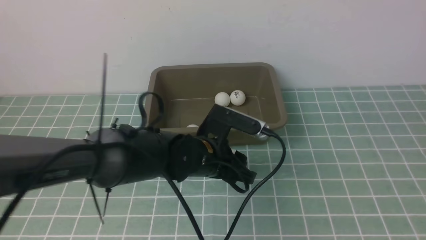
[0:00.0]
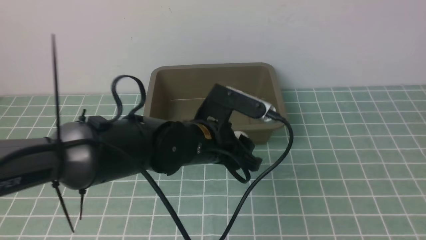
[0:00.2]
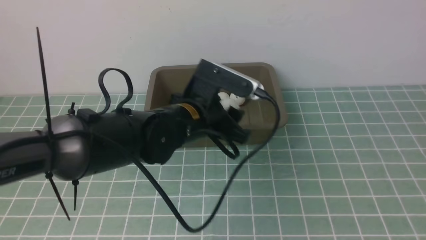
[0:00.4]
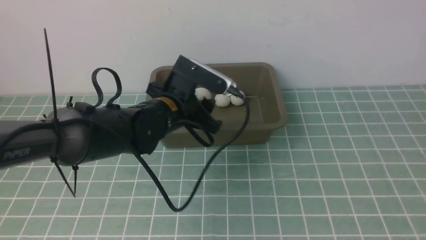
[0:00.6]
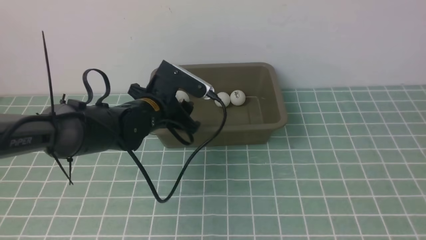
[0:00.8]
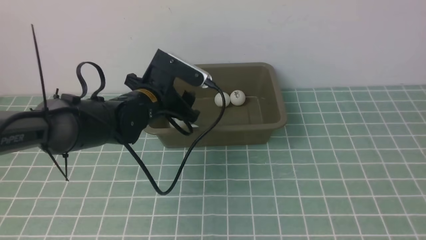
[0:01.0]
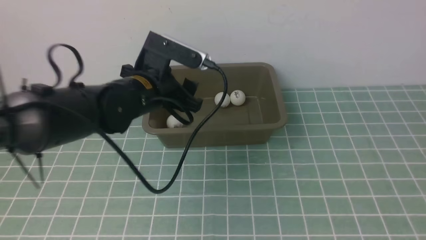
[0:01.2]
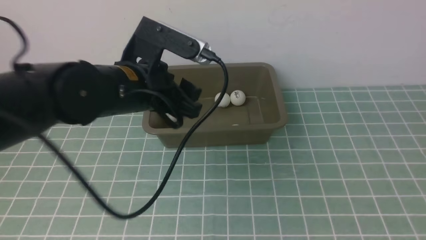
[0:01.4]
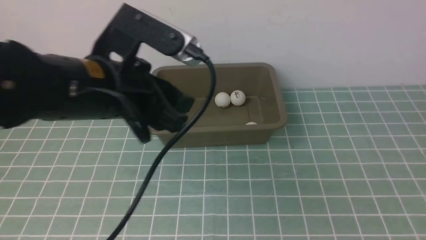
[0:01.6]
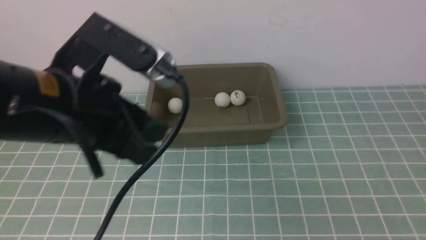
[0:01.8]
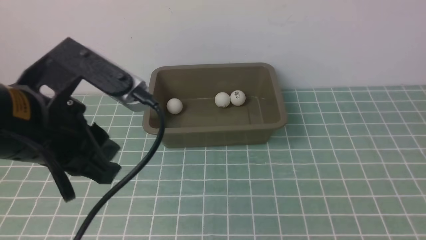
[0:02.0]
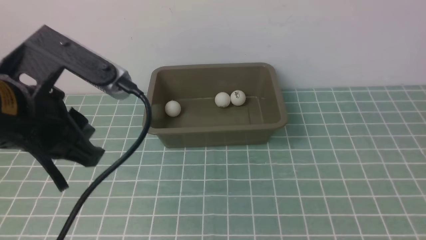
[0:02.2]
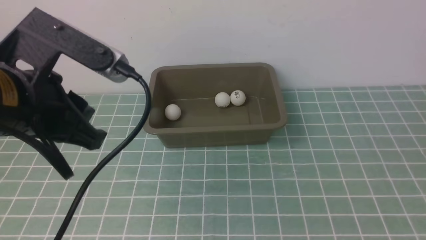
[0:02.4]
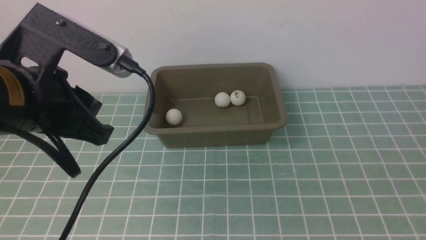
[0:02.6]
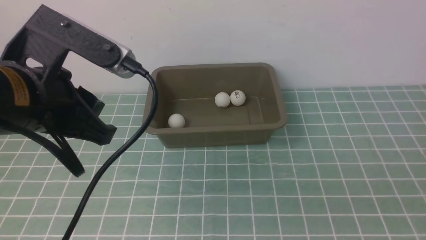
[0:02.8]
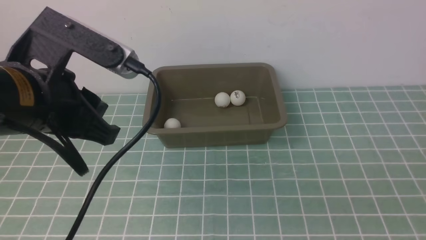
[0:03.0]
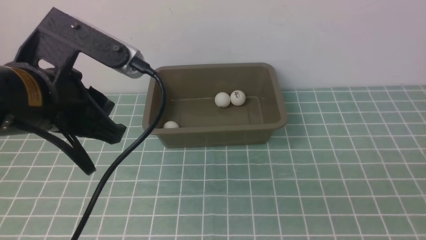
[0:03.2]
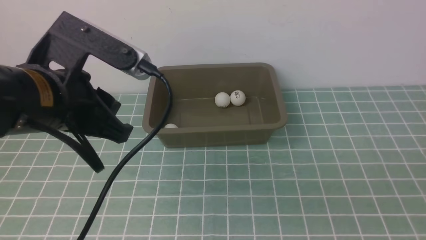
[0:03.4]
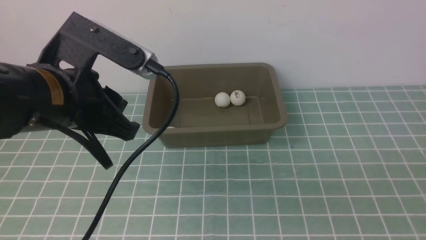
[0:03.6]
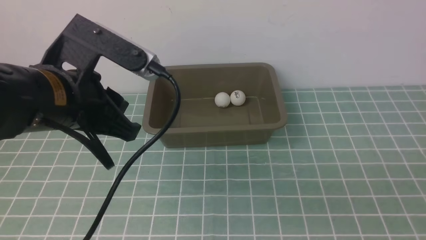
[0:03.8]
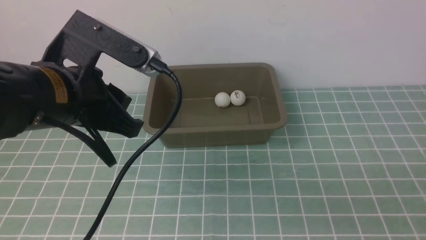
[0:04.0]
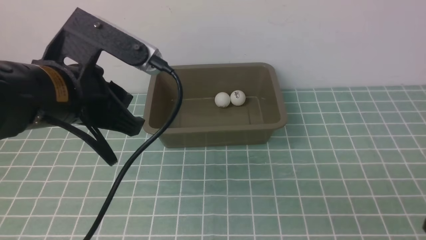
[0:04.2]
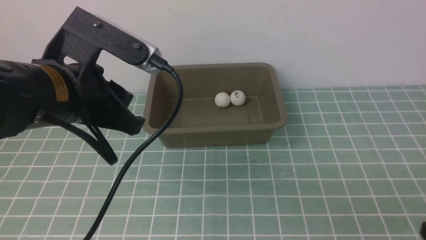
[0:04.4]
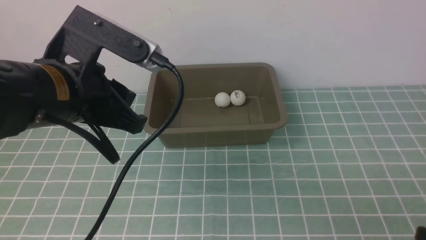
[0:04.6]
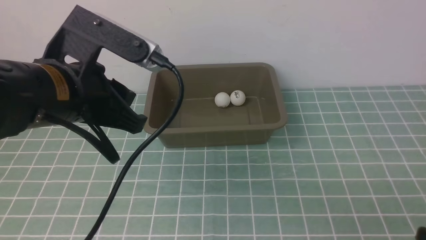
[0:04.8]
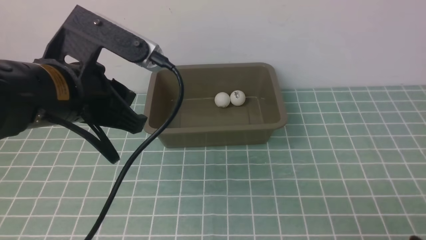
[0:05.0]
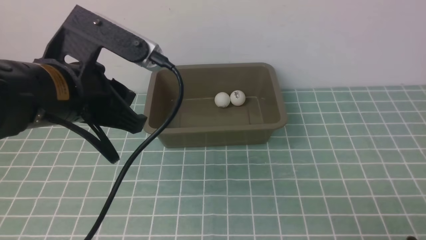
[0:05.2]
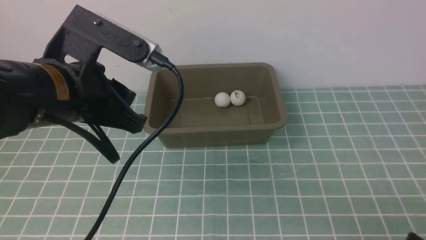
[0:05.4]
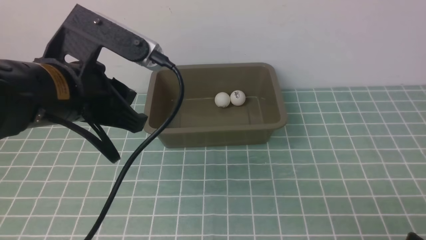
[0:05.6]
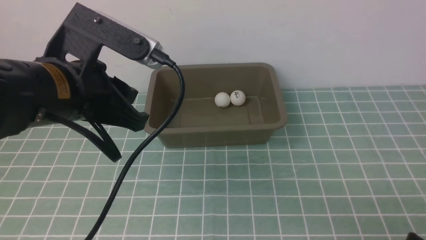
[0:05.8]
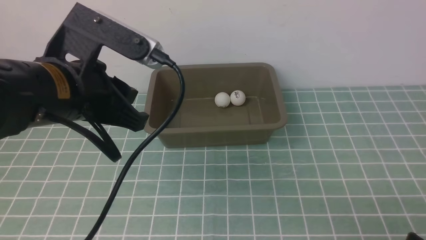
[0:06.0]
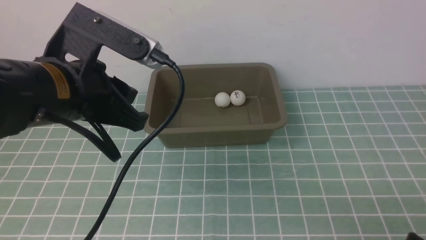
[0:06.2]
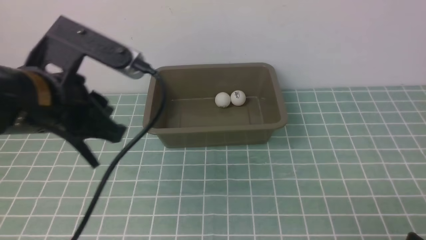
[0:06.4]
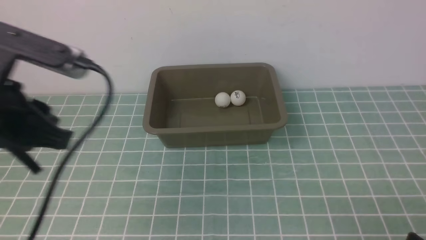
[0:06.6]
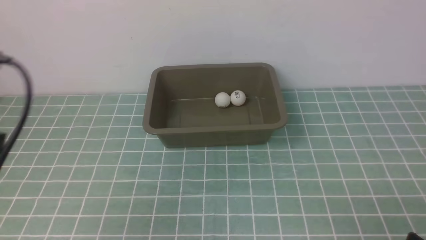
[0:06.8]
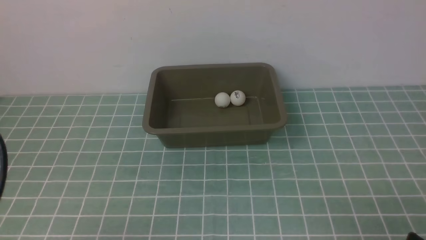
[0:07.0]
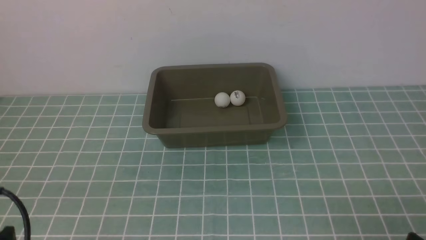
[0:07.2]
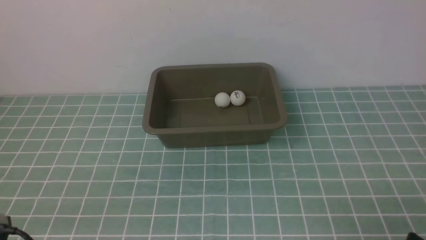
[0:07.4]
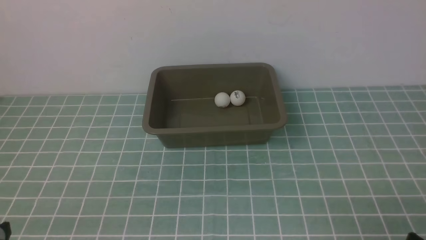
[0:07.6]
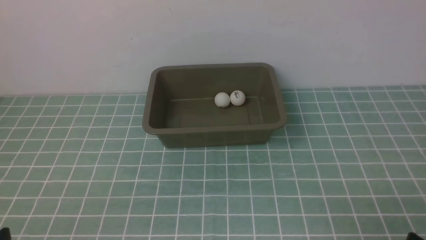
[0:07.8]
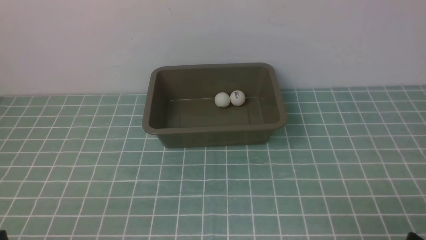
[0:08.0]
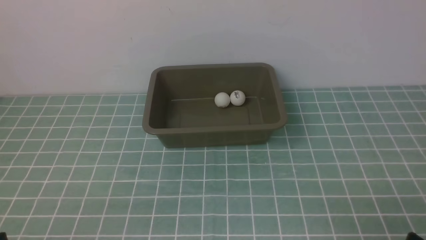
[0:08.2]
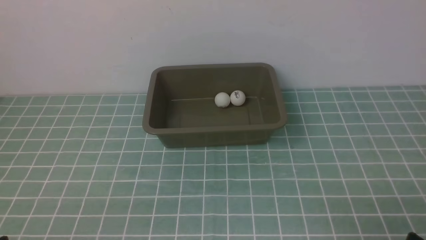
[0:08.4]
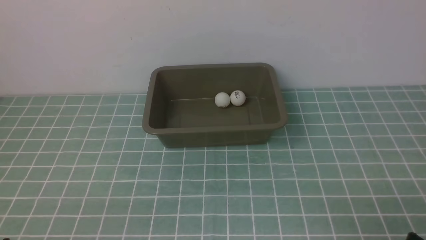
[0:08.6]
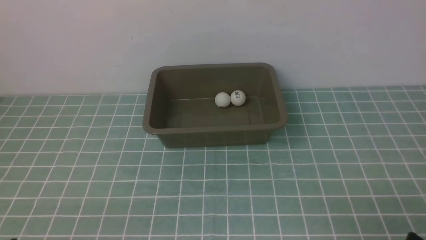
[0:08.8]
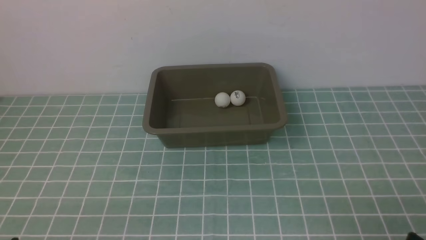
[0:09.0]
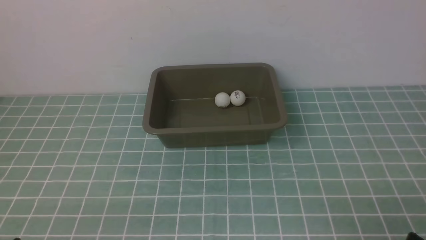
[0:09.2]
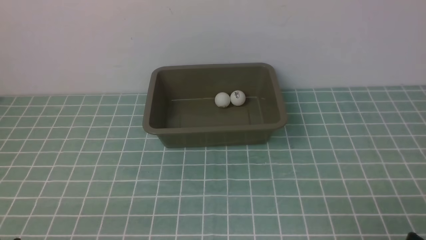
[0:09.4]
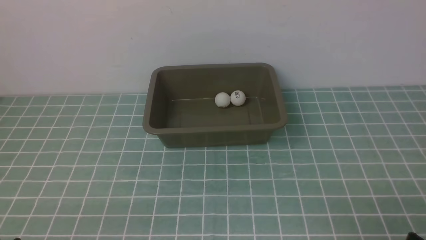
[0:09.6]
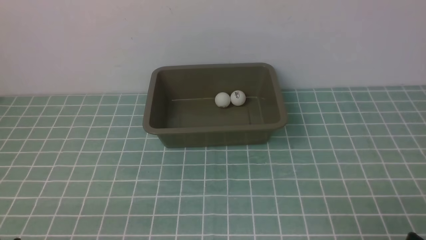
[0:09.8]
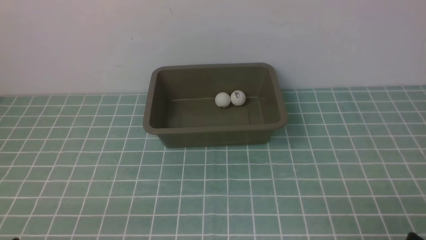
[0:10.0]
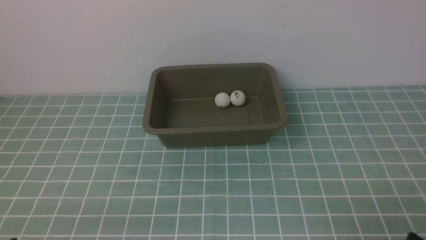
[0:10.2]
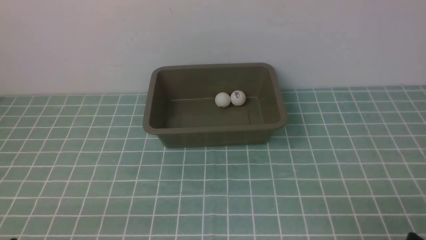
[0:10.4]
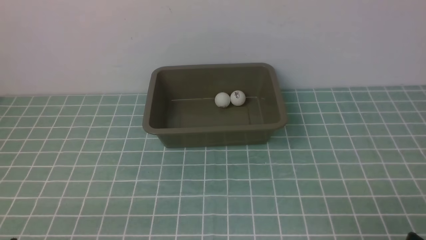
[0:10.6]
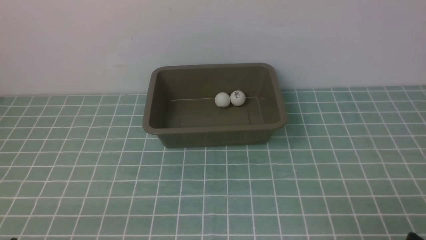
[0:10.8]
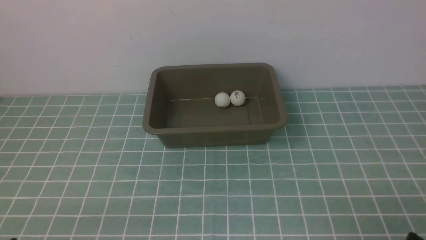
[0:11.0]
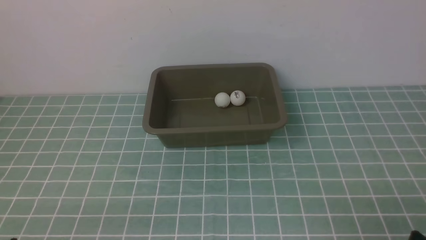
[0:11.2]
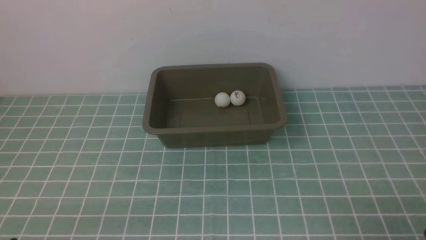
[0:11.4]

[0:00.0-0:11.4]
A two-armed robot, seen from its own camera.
Step, 0:00.4 to 0:01.2: use the left arm to put the table tennis ball into the box.
0:00.0 to 0:01.4: The left gripper travels upward and to the left by about 10 cm.
0:01.4 to 0:02.8: The left gripper goes some 15 cm backward, upward and to the left, and closes. The right gripper moves downward and backward, about 10 cm.
0:02.8 to 0:04.2: The right gripper travels downward by roughly 5 cm.
0:04.2 to 0:05.6: The right gripper shifts approximately 5 cm downward.
0:05.6 to 0:07.2: The left gripper goes roughly 15 cm backward and to the left.
0:07.2 to 0:08.6: The left gripper is displaced downward and backward by approximately 15 cm.
0:08.6 to 0:10.0: Both grippers stay put.
0:10.0 to 0:11.4: Neither gripper changes place.

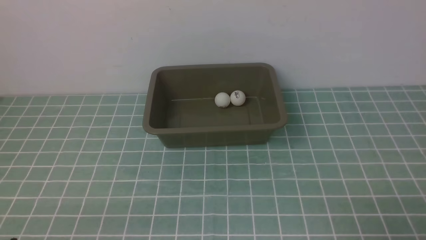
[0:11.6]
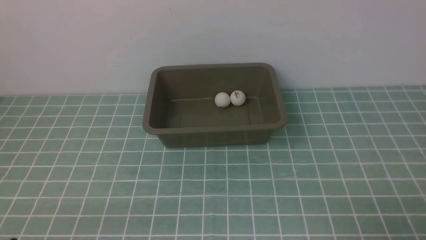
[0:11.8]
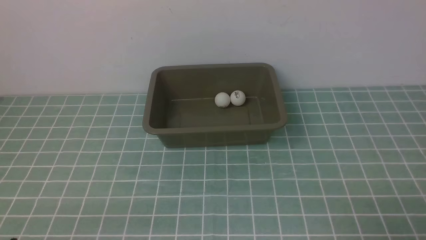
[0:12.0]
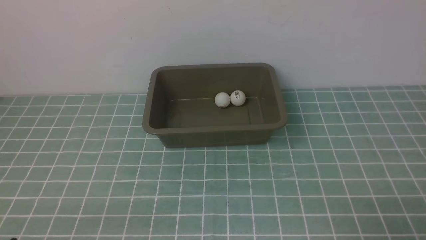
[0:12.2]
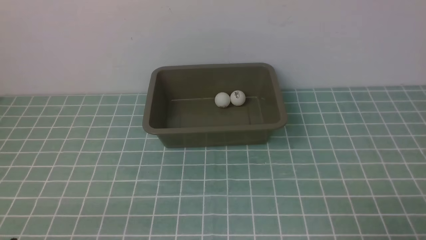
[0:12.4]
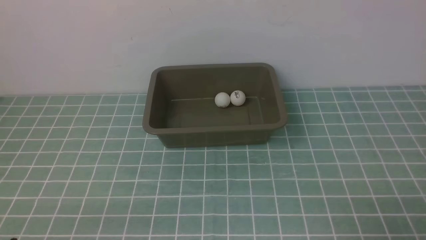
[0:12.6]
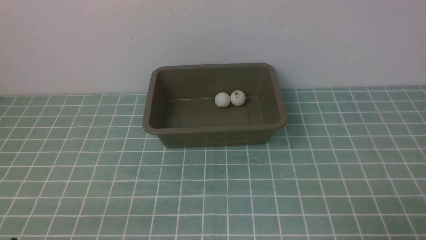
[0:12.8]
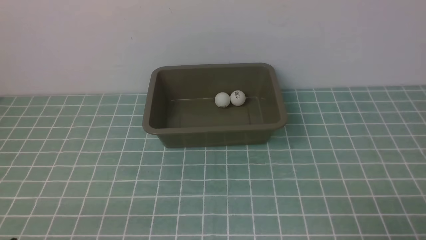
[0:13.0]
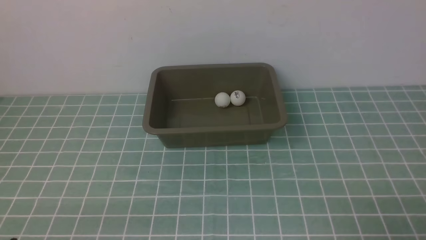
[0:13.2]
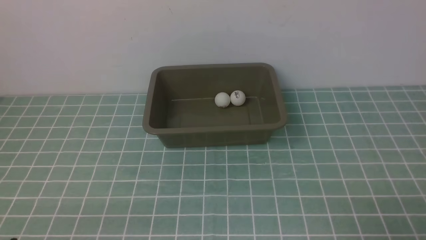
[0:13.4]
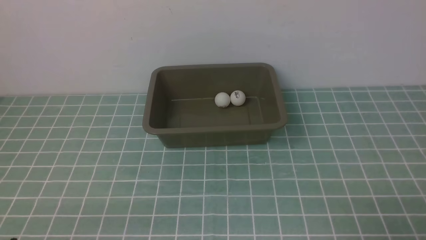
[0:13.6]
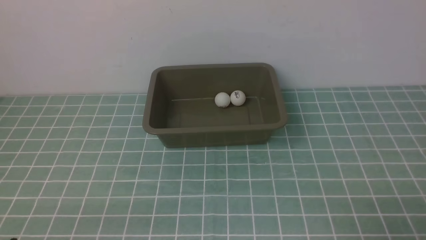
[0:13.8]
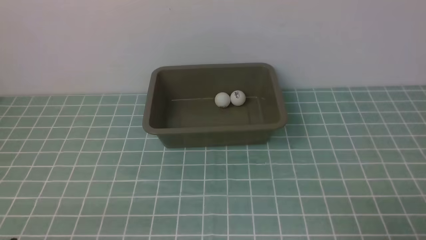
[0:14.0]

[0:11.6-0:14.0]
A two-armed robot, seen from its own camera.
0:11.6 to 0:14.0: Both grippers stay put.
